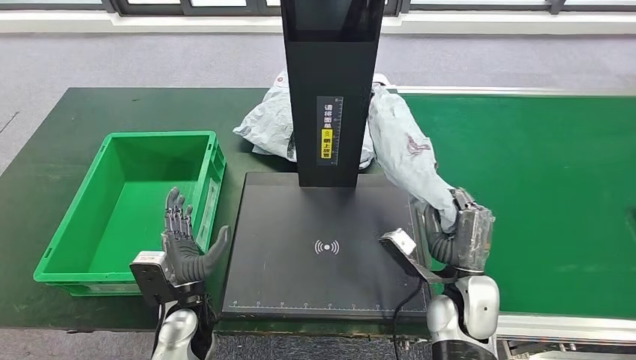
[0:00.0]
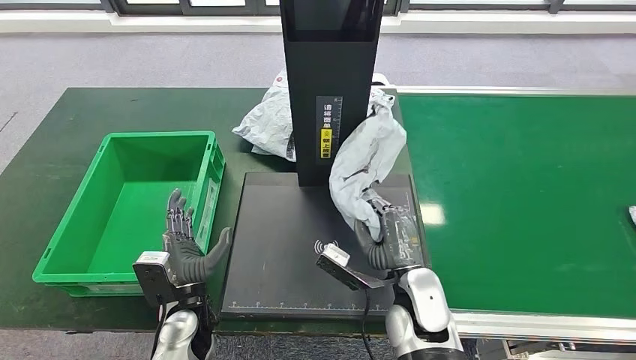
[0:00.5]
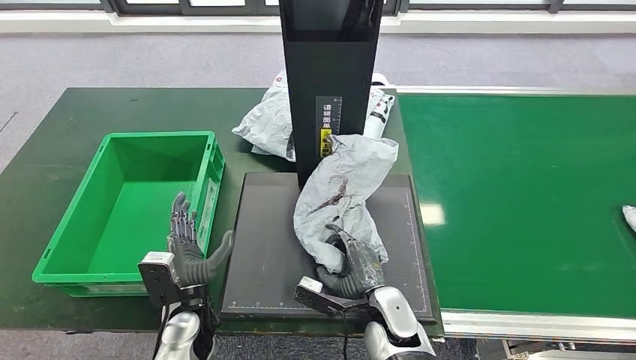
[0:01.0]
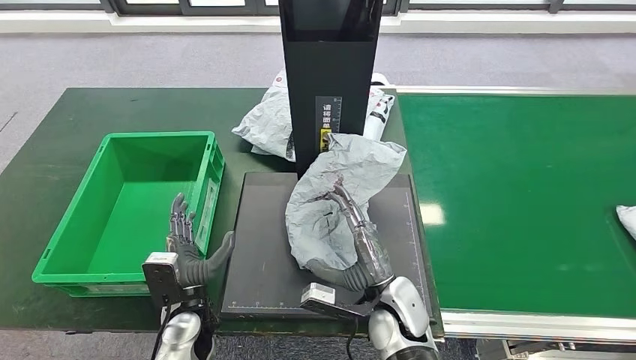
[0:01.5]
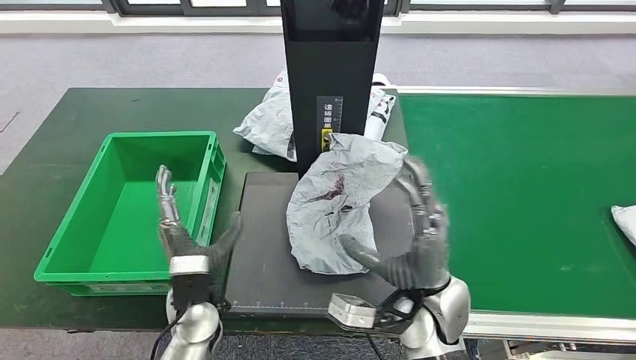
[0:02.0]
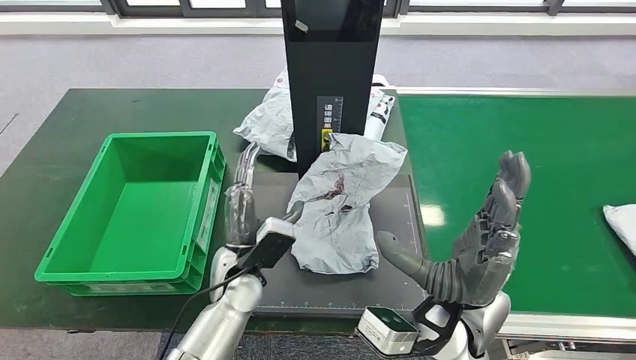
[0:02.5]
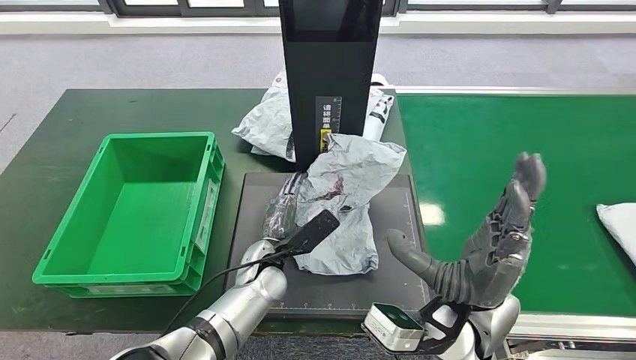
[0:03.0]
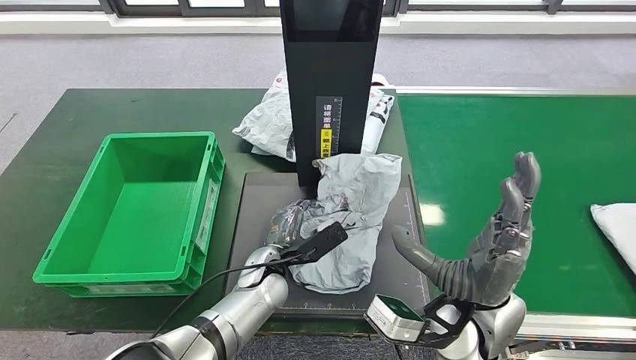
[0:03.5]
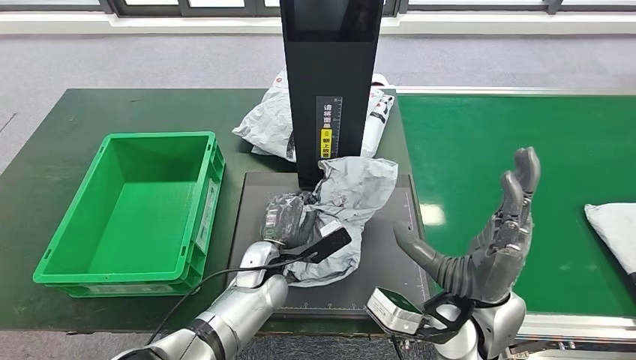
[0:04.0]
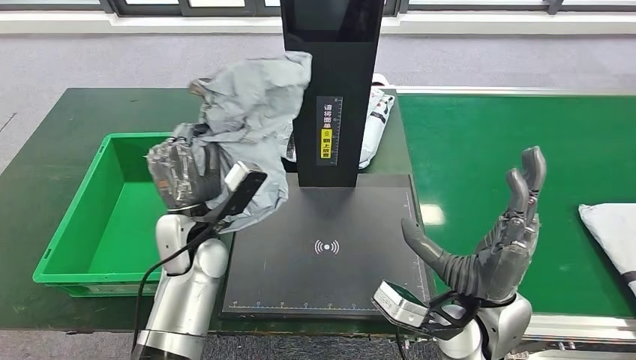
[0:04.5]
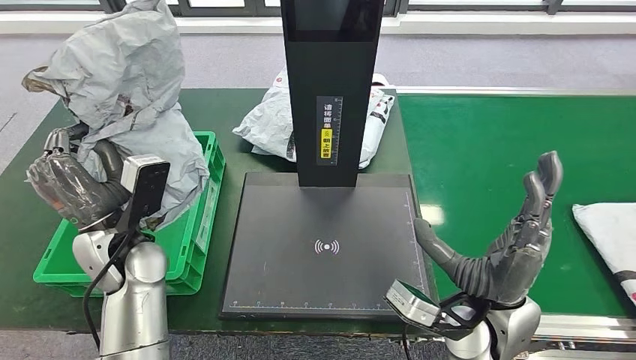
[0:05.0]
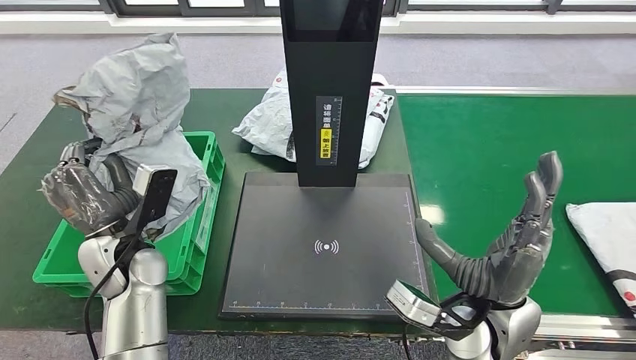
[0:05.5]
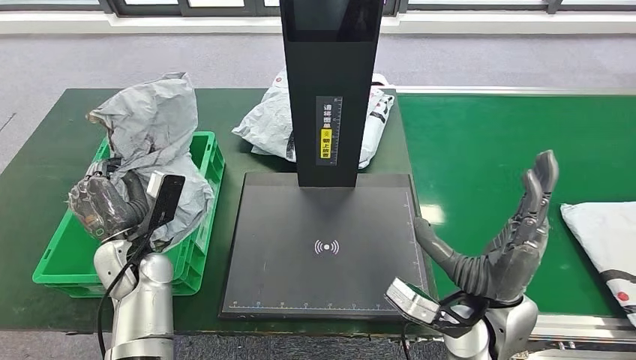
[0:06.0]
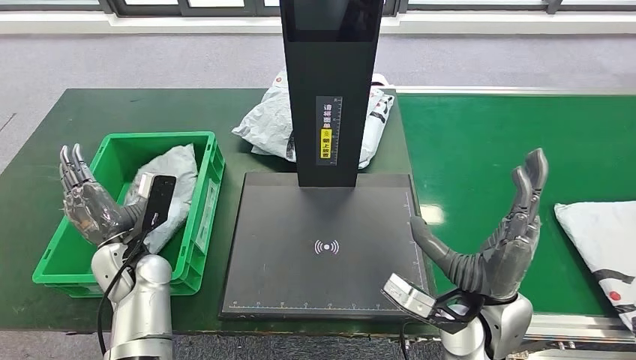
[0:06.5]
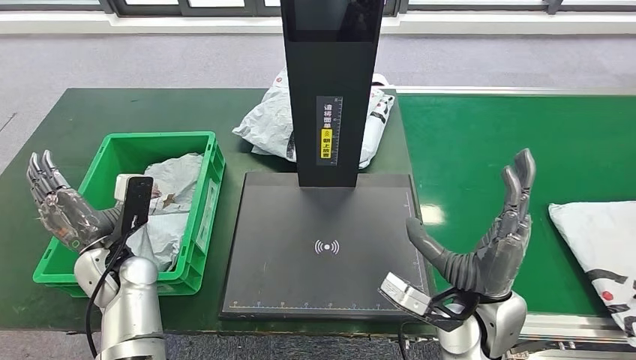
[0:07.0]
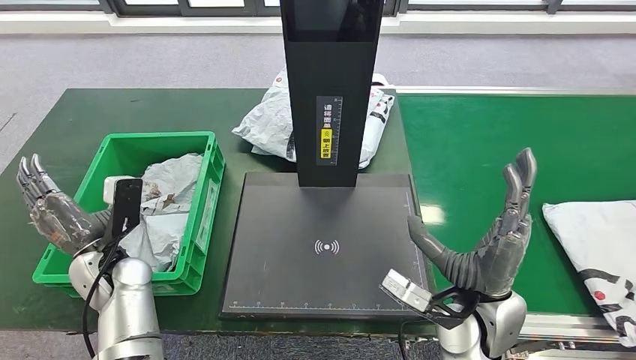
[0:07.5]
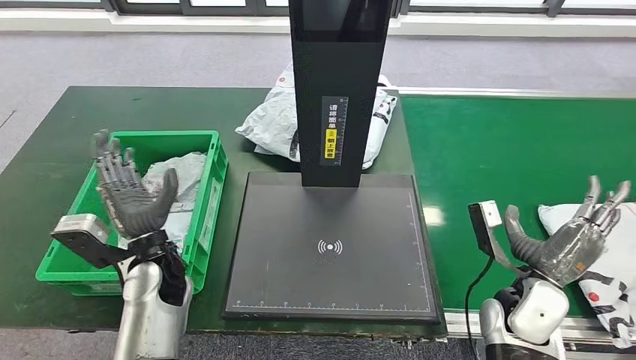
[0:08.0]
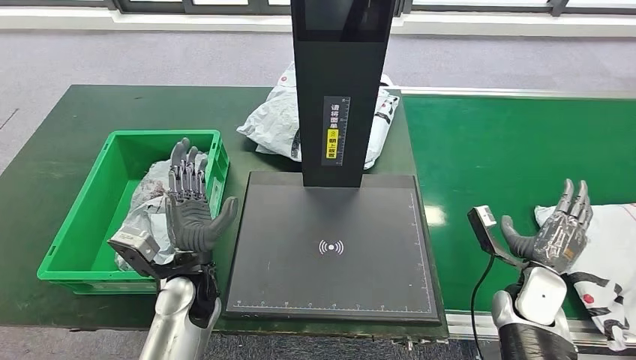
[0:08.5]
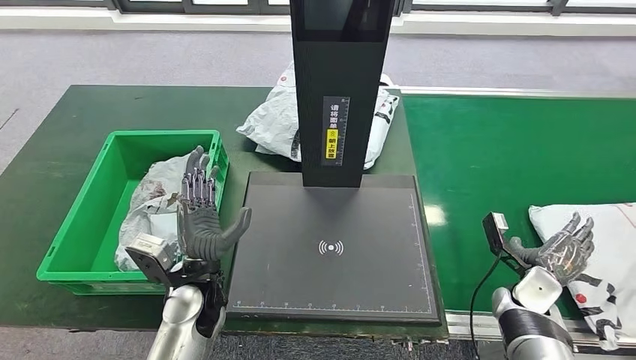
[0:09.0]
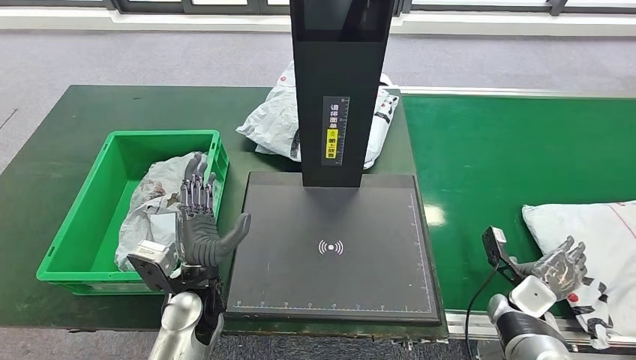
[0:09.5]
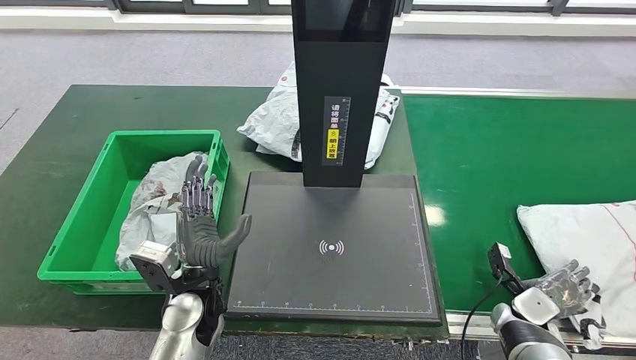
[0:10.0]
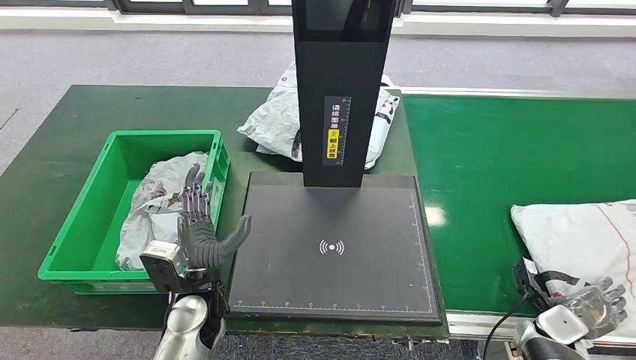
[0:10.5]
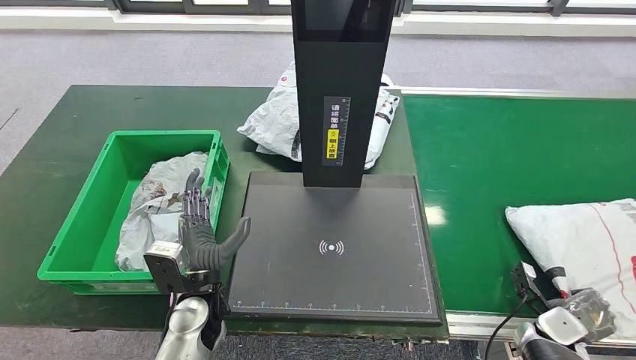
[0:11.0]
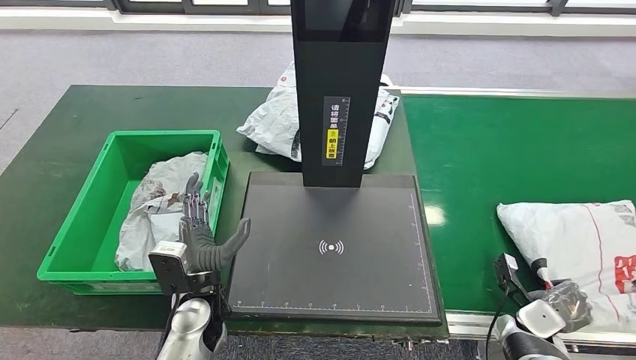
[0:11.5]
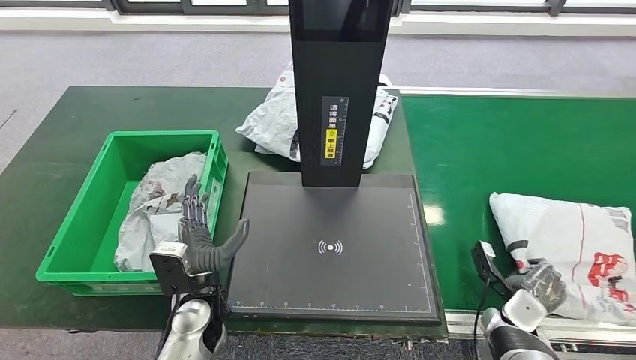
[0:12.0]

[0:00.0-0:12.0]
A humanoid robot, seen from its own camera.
Step, 0:01.0 to 0:01.5: Place the parcel onto the inbound machine.
Step, 0:03.0 to 0:04.5: Pick up the parcel from the inbound machine.
Step, 0:05.5 to 0:07.0: Put the parcel inside the courier box.
0:00.0 to 0:02.0: The right hand shifts some 10 cm to the left and upward.
0:02.0 to 0:04.0: The left hand shifts approximately 10 cm to the right and forward, while the right hand ends up about 5 cm from where it was.
0:10.0 to 0:12.0: The hands move only a little.

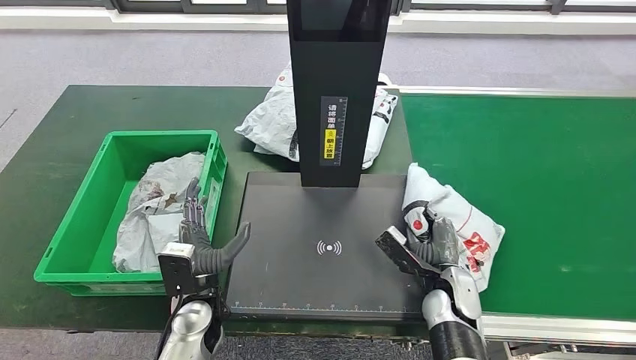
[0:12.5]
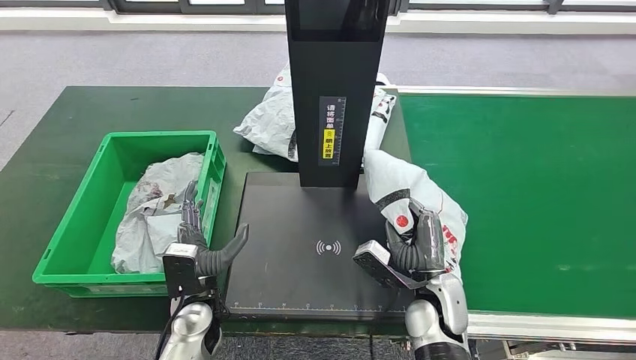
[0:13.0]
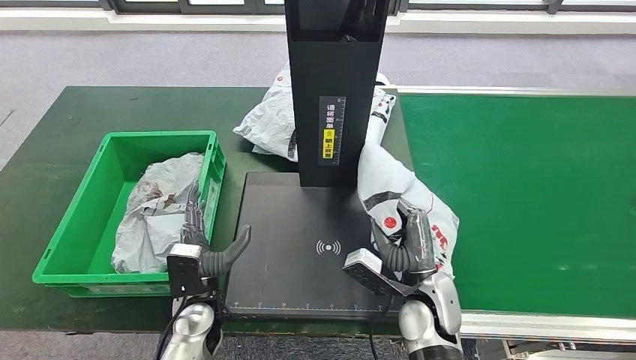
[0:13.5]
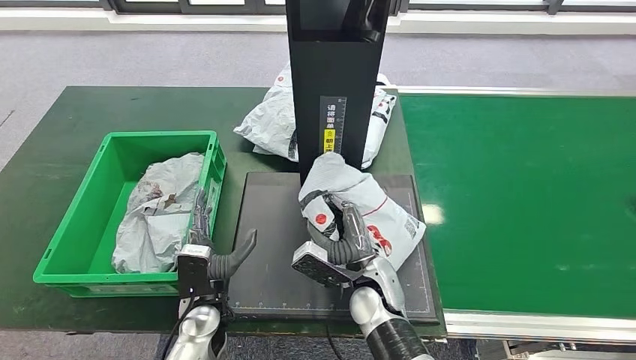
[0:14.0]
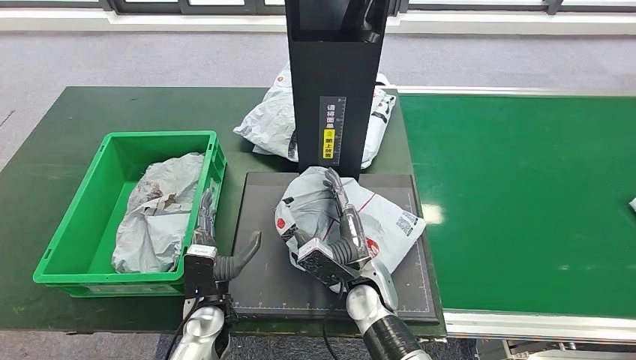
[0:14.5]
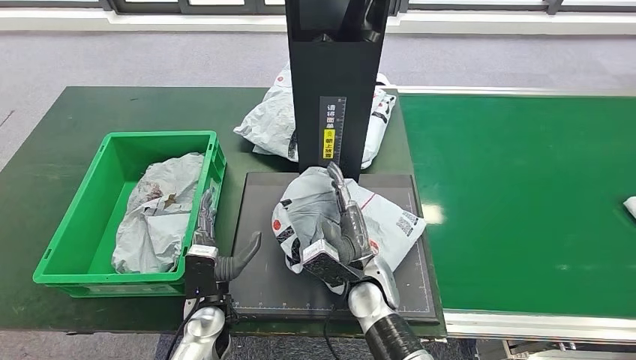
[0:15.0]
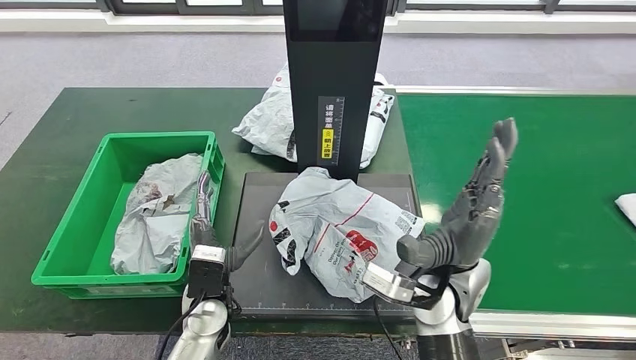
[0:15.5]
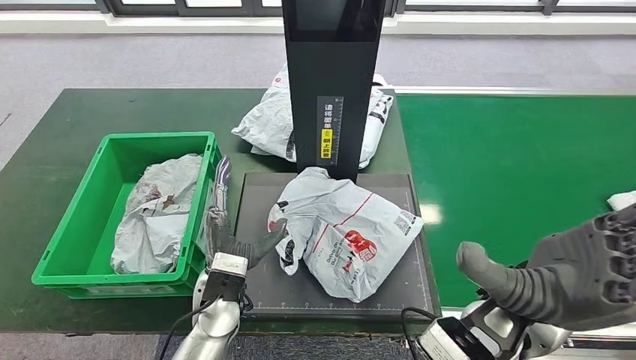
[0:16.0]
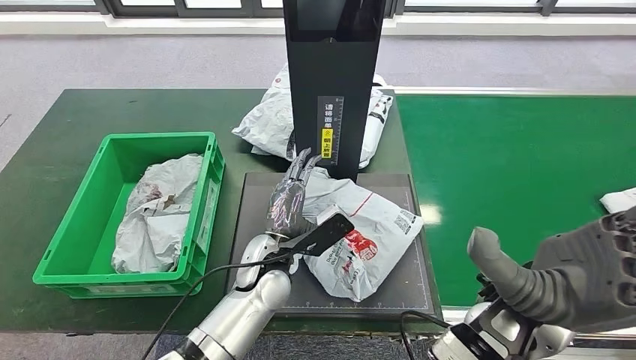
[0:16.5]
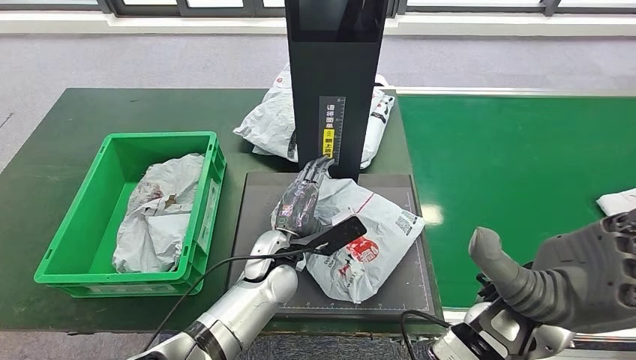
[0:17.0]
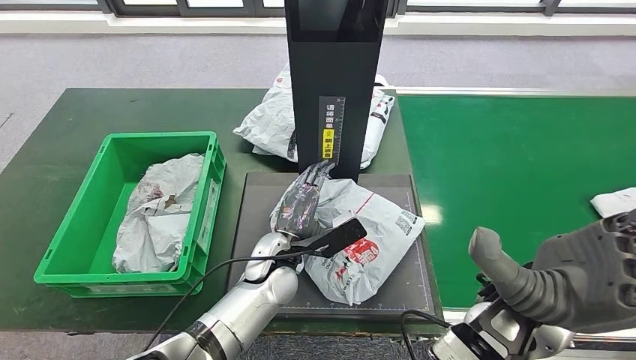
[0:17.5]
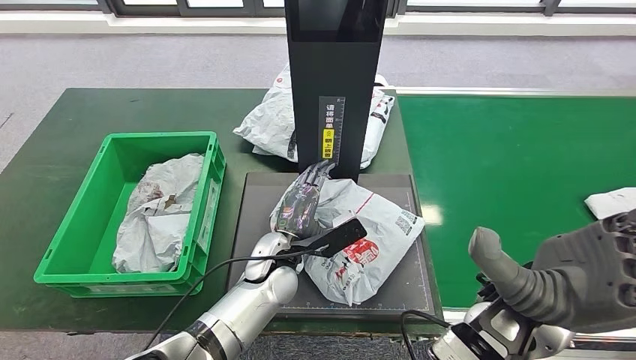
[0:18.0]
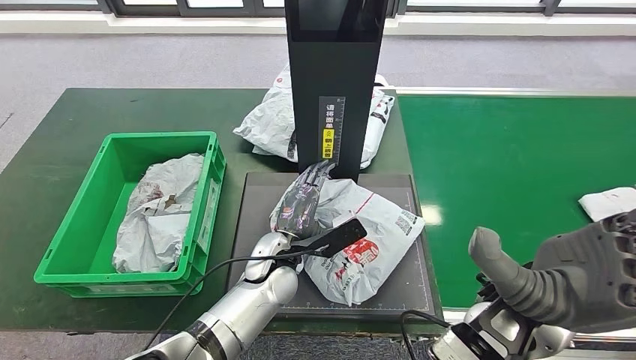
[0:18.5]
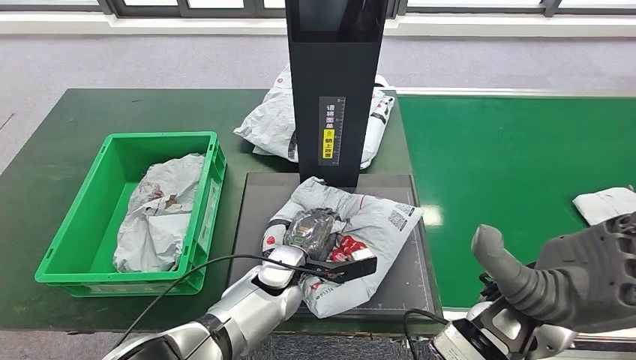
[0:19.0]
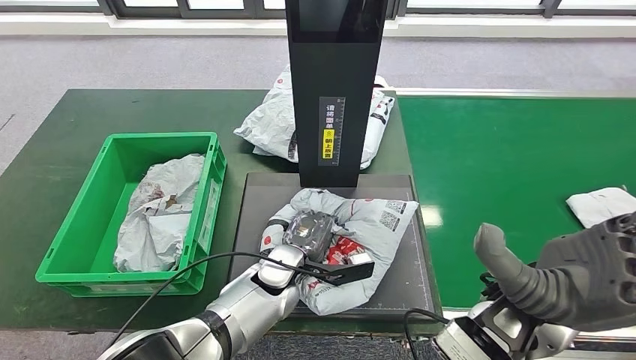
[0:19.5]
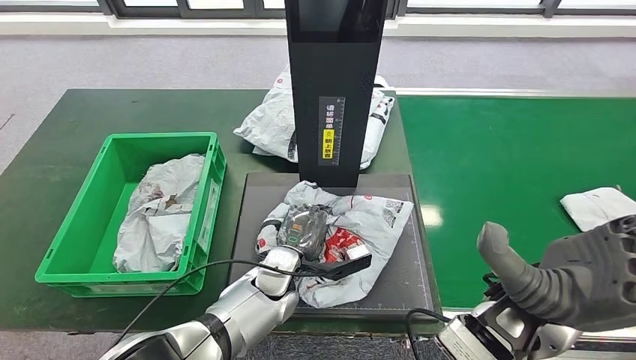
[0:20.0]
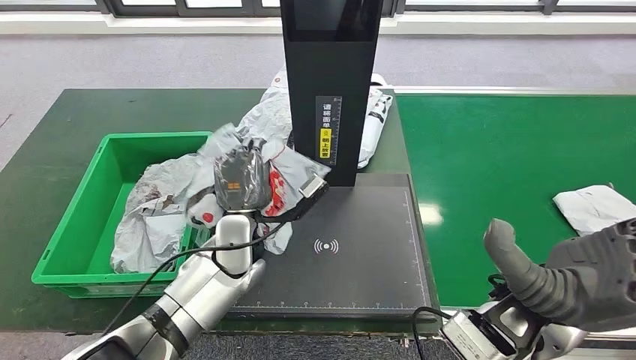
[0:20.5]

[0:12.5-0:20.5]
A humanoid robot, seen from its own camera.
Step, 0:13.0 to 0:15.0: Place the parcel onto the inbound machine.
Step, 0:16.0 to 0:20.5: Pick up the parcel from the inbound machine.
0:16.5 to 0:18.5: The hands make only small movements.
